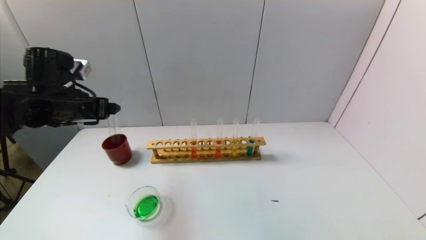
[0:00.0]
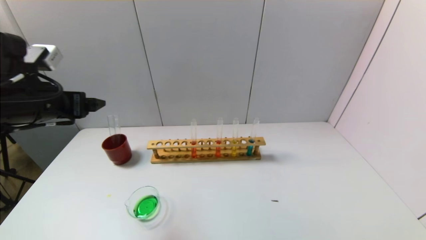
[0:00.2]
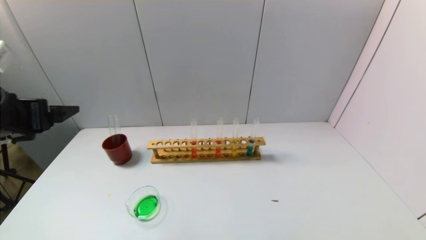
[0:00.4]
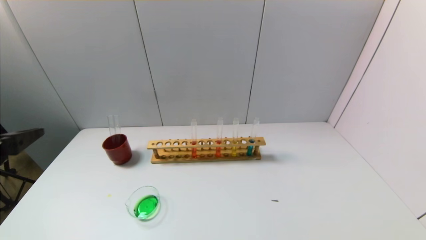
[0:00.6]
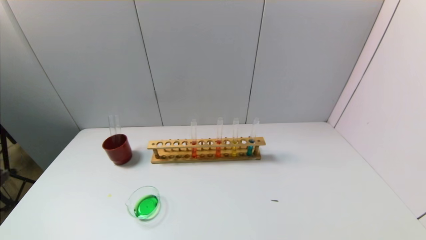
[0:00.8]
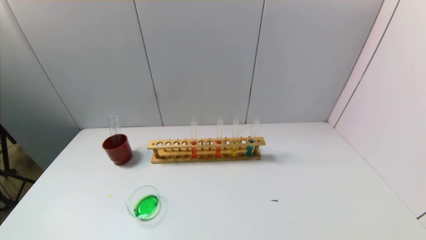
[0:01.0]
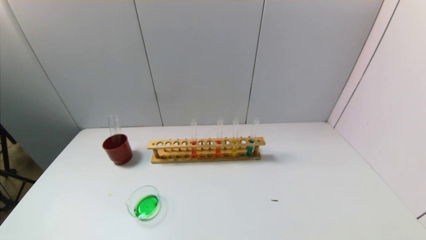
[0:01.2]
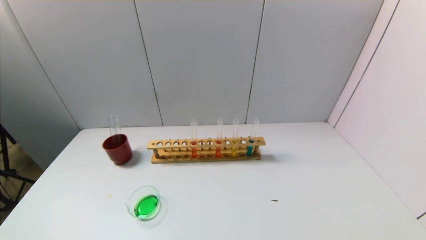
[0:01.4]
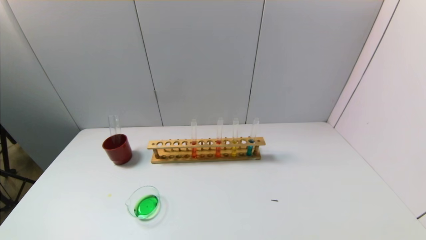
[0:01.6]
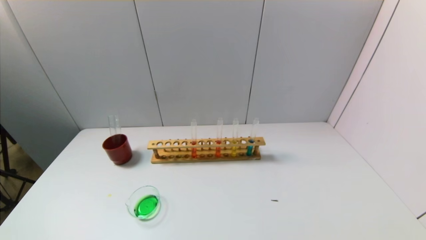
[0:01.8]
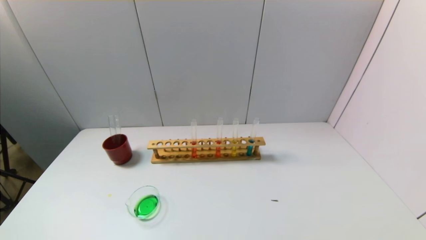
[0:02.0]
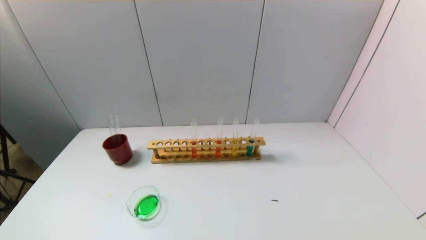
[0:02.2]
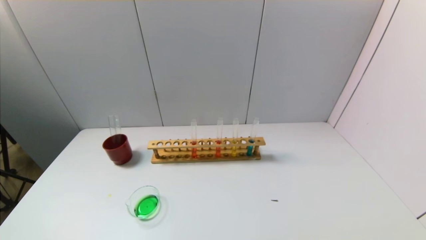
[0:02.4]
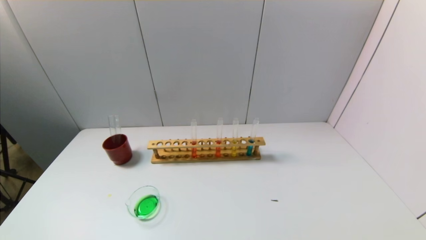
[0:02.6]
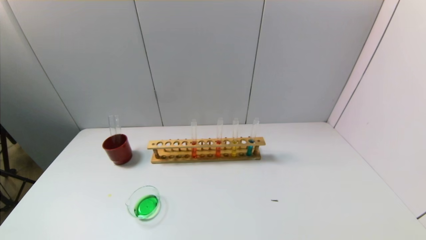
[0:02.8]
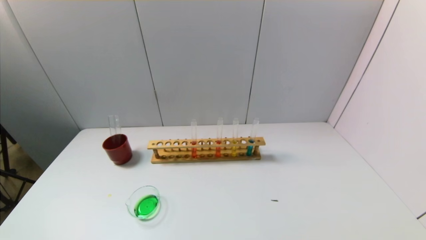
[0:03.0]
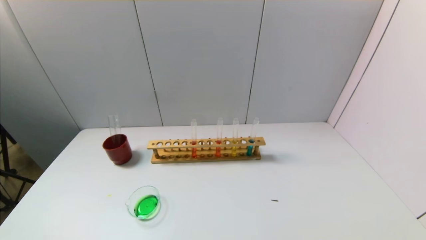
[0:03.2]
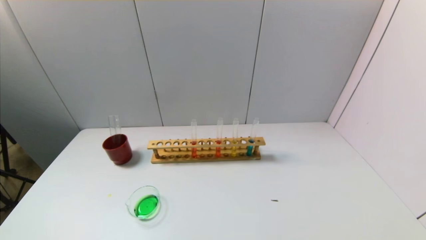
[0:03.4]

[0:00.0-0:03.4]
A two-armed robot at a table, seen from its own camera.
Task of the whole recording: pick up the test tube with yellow pigment and the test tube with blue pigment by grippers and pour them into the beaker.
0:00.0 to 0:01.6: The left gripper heads backward, covering about 30 cm.
